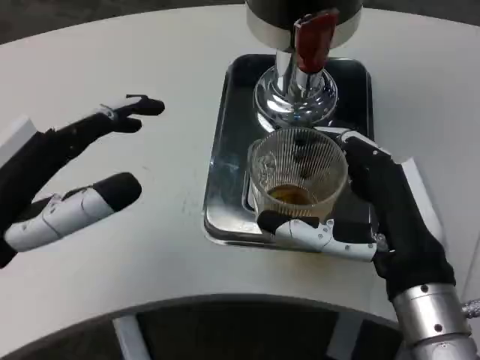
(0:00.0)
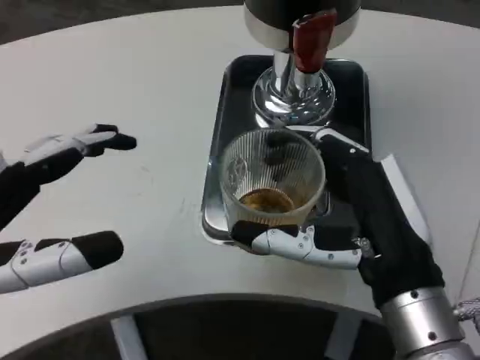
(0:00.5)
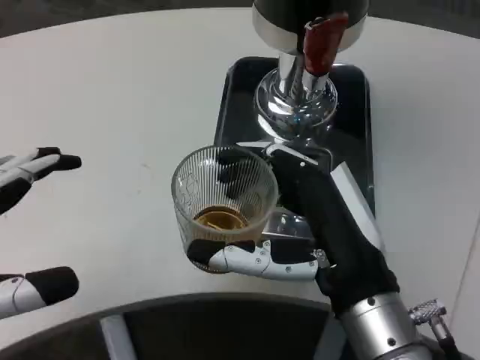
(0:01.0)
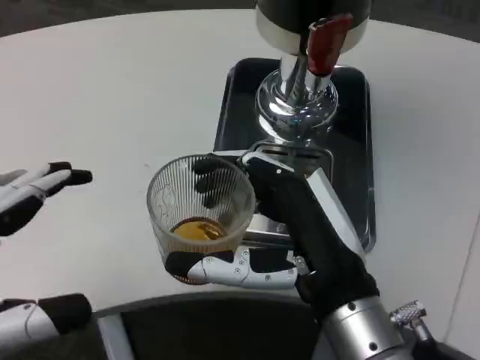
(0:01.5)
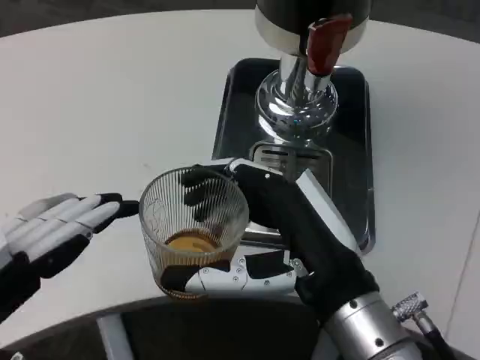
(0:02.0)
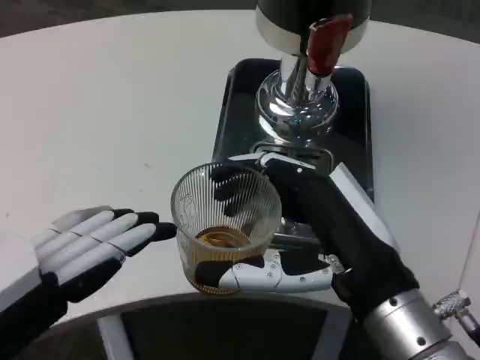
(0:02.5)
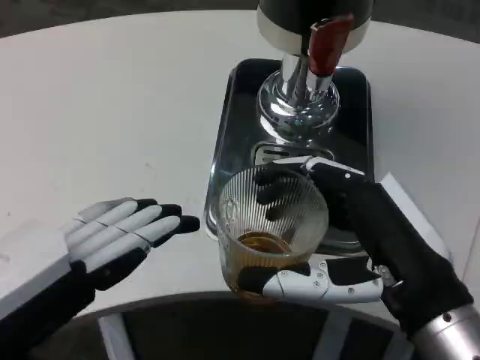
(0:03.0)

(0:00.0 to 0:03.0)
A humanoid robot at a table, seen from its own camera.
Task of the whole recording: Grasp the cup under the faucet to collect the drink, then remove the cup.
0:00.0 - 0:01.5: The left hand travels backward by about 10 cm.
0:01.5 - 0:03.0: The right hand heads to the right, covering roughly 5 cm.

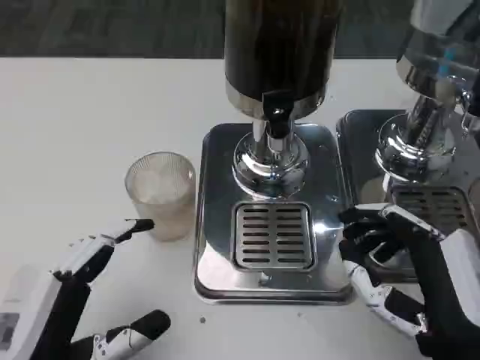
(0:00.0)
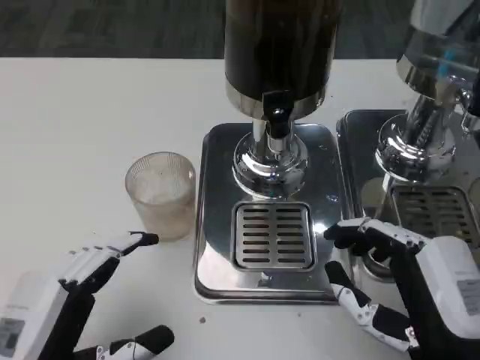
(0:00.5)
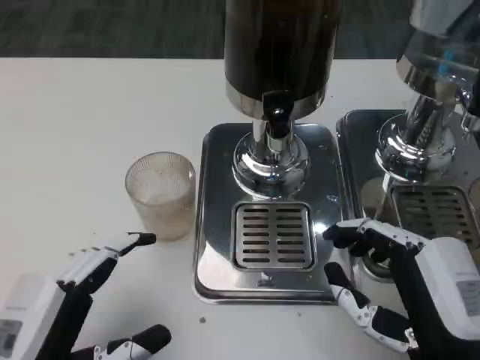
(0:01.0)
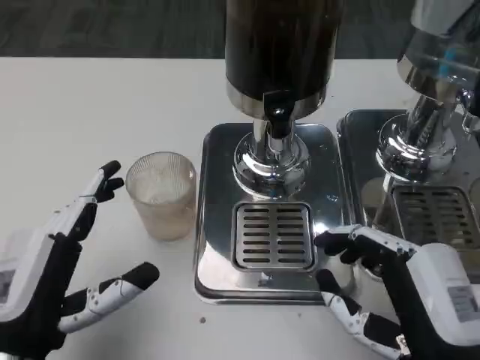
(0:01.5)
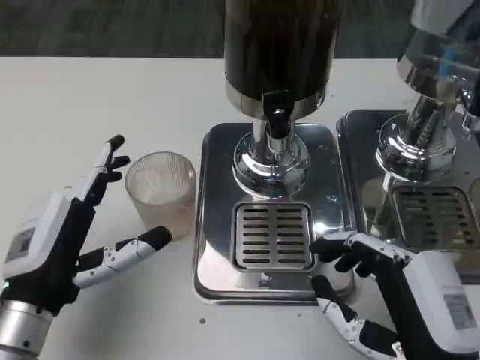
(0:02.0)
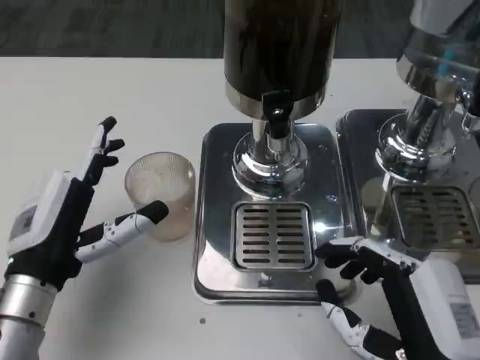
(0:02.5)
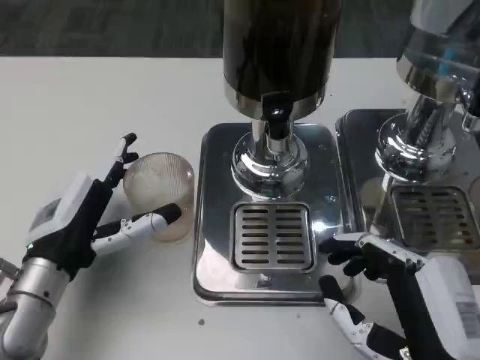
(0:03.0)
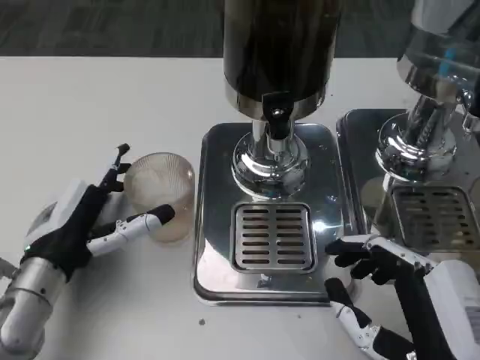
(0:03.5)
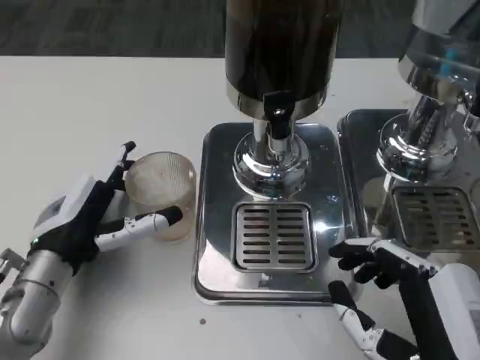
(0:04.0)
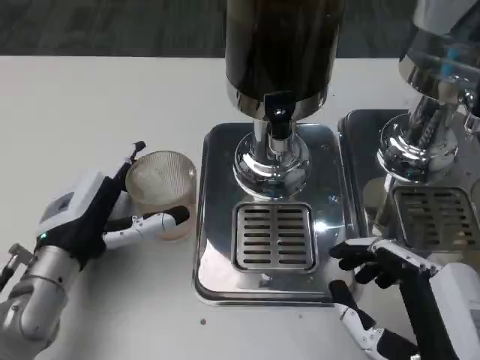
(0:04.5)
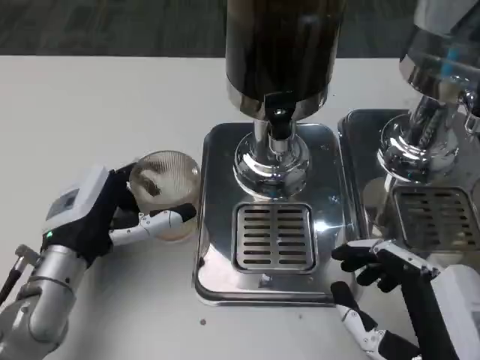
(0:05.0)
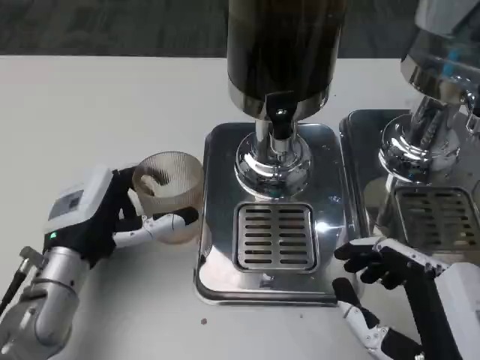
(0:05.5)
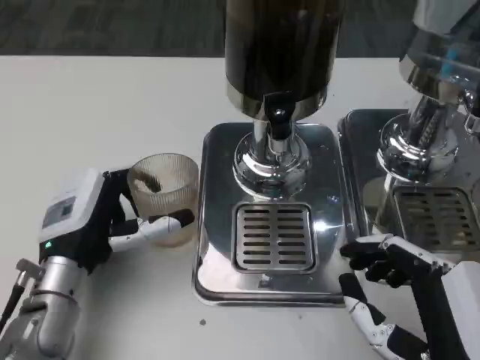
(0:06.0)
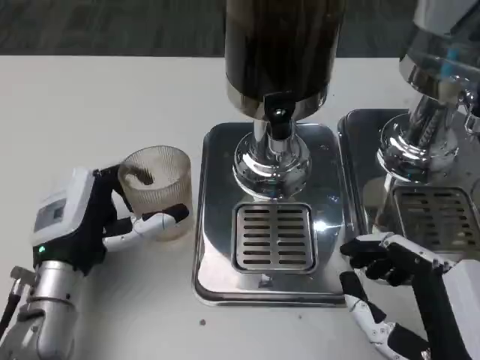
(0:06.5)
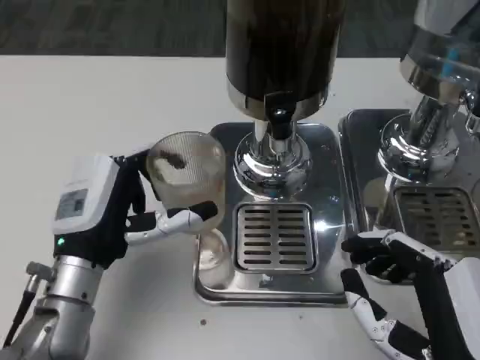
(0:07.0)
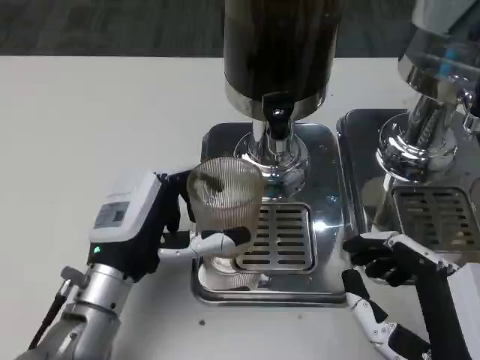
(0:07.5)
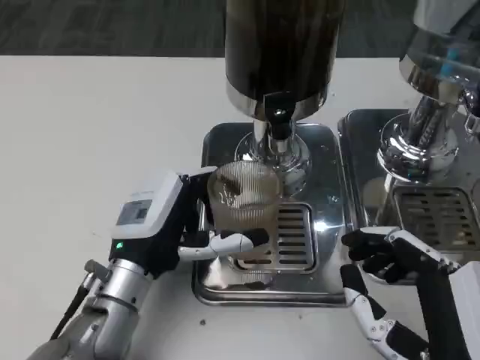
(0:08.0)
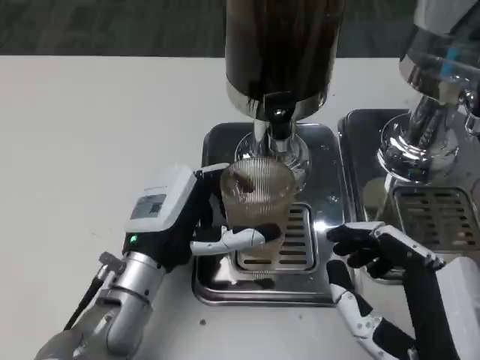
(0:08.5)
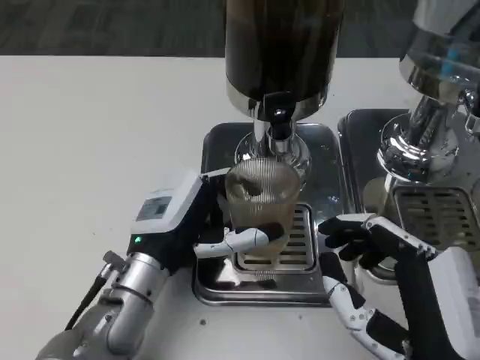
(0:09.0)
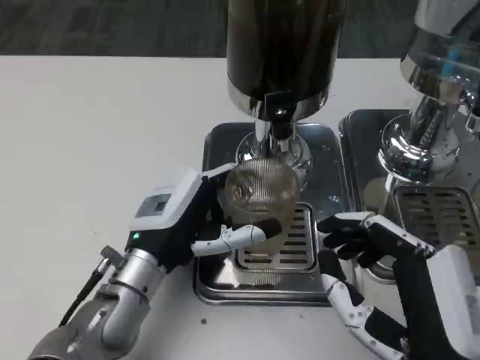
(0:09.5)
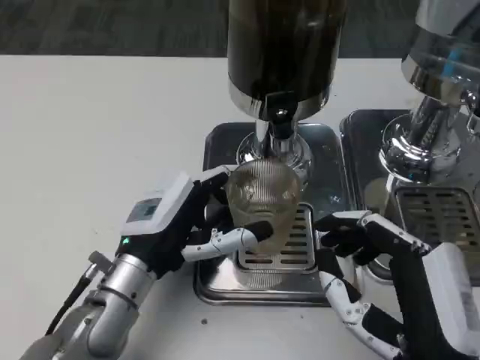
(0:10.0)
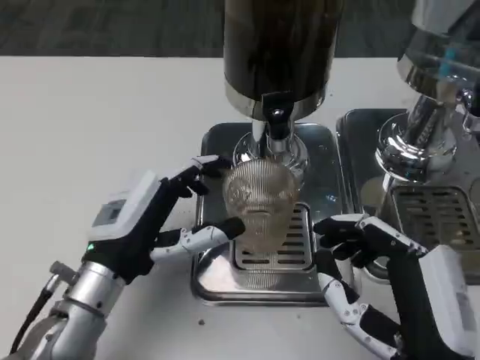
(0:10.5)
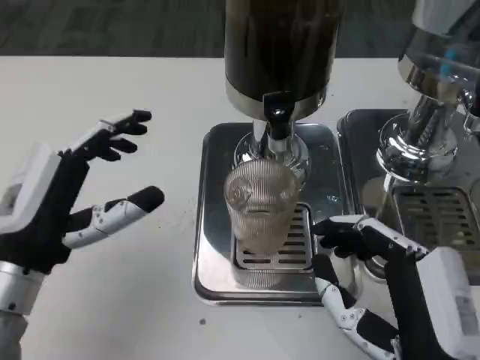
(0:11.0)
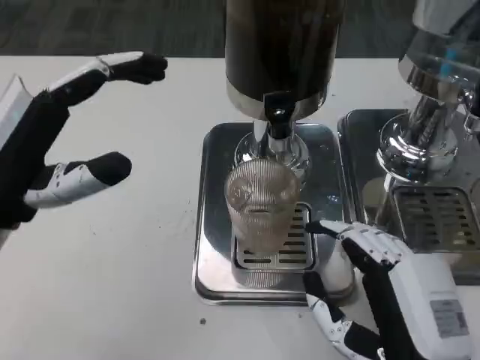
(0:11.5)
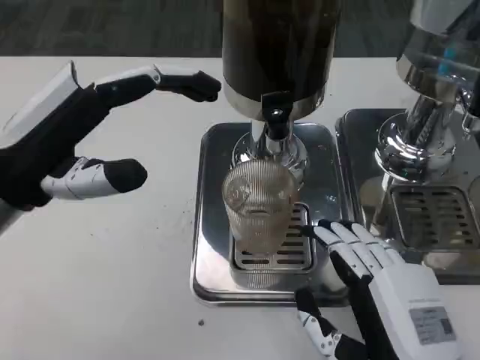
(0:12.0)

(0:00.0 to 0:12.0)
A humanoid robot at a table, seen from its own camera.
Task of the whole recording: Grasp the cup under the faucet to collect the drink, then remove the cup.
0:00.0 - 0:02.0: The left hand goes approximately 10 cm forward.
0:02.0 - 0:04.0: The left hand is displaced forward by some 5 cm.
0:04.0 - 0:06.0: The hands make only small movements.
0:06.0 - 0:08.0: The left hand heads to the right, covering some 5 cm.
0:08.0 - 0:10.0: The hands stay close to where they were, moving slightly.
0:10.0 - 0:12.0: The left hand moves upward and to the left, roughly 15 cm.

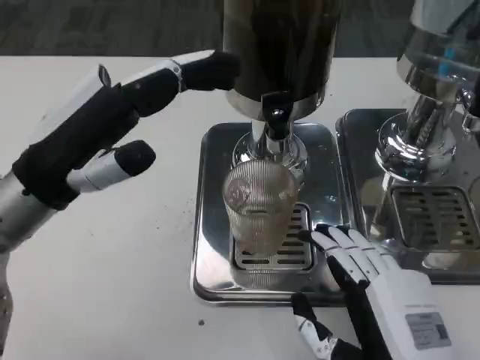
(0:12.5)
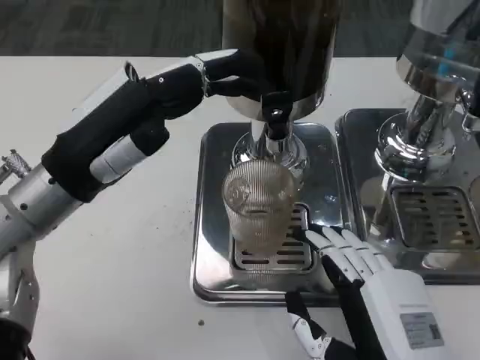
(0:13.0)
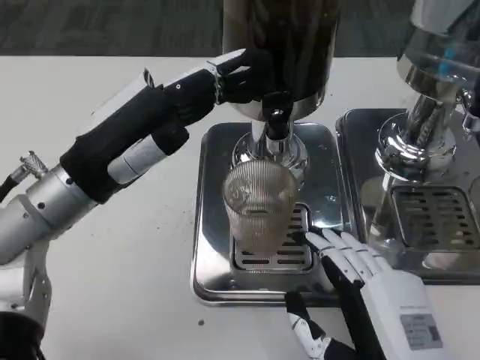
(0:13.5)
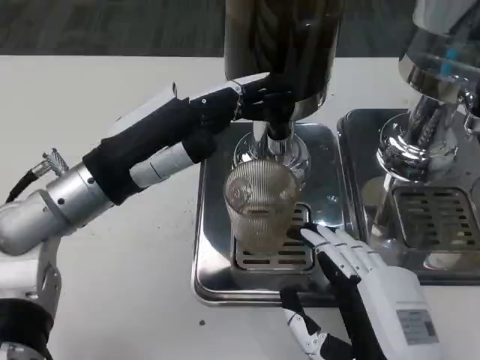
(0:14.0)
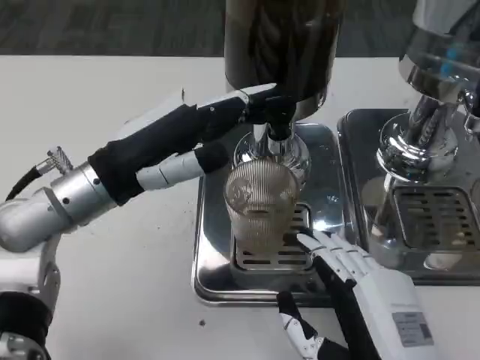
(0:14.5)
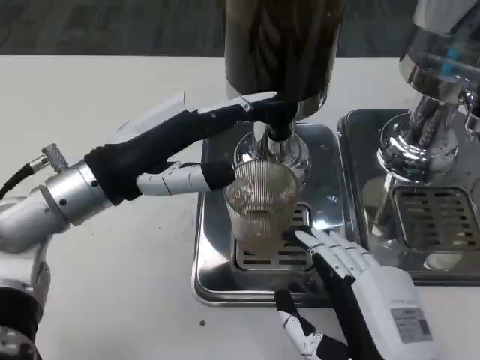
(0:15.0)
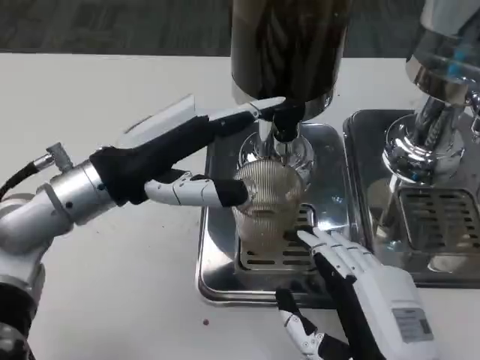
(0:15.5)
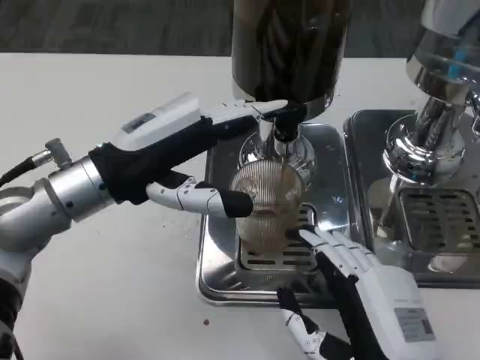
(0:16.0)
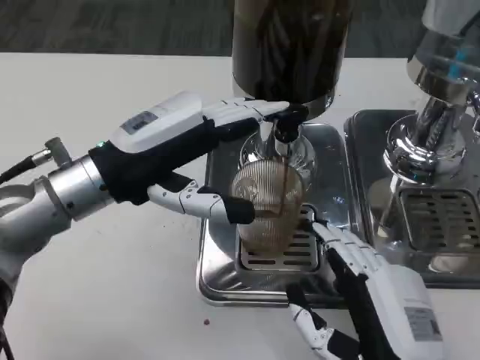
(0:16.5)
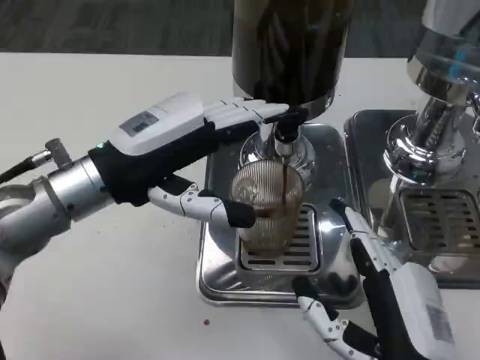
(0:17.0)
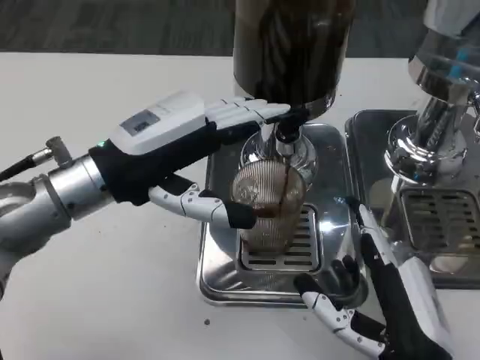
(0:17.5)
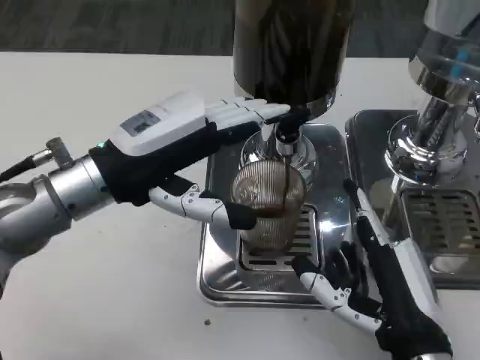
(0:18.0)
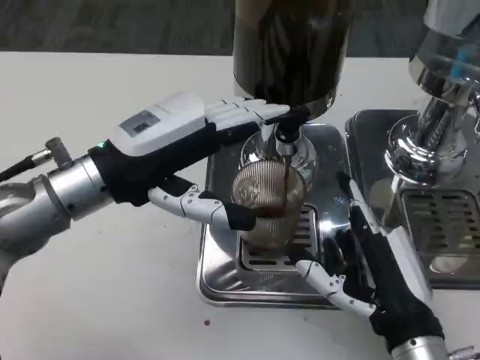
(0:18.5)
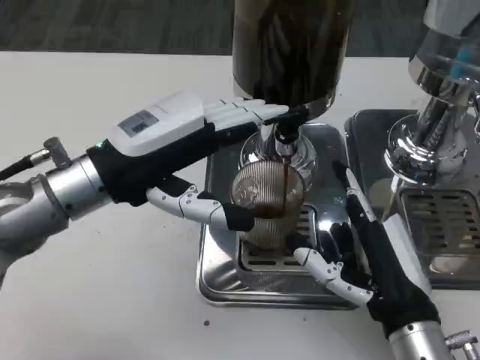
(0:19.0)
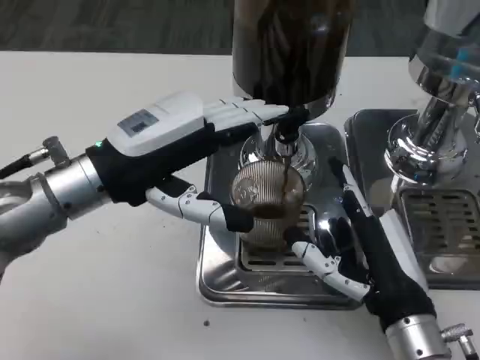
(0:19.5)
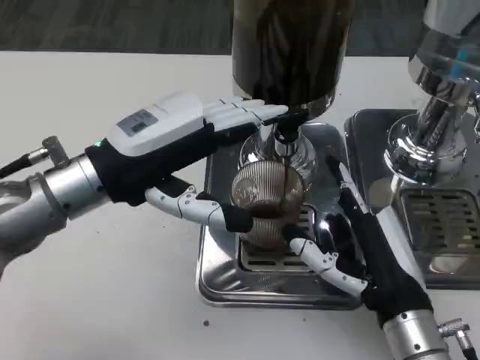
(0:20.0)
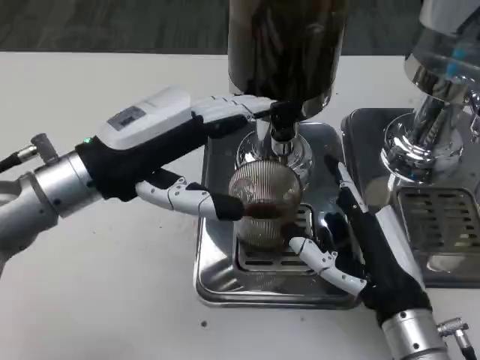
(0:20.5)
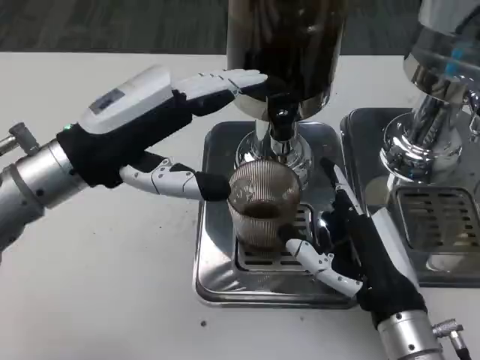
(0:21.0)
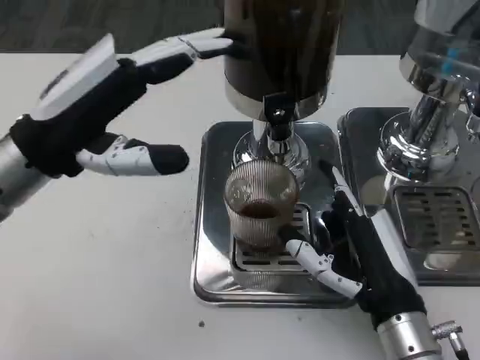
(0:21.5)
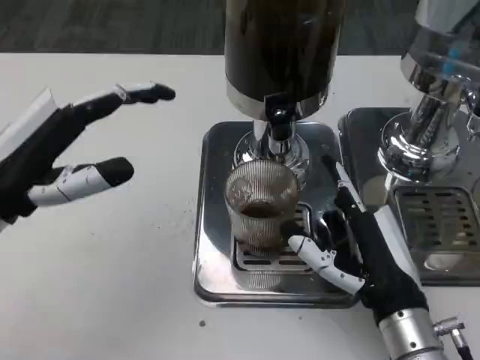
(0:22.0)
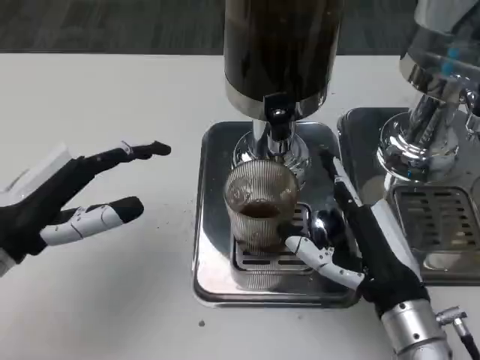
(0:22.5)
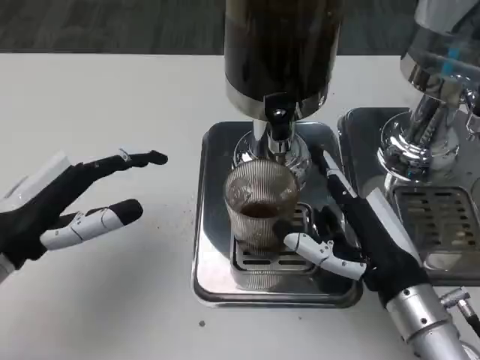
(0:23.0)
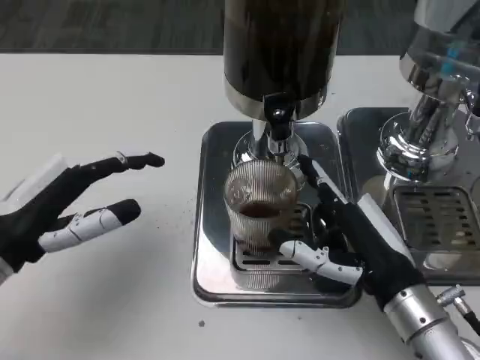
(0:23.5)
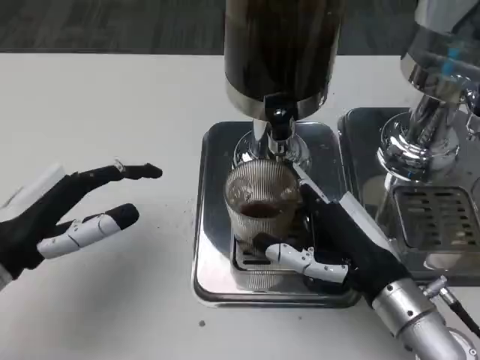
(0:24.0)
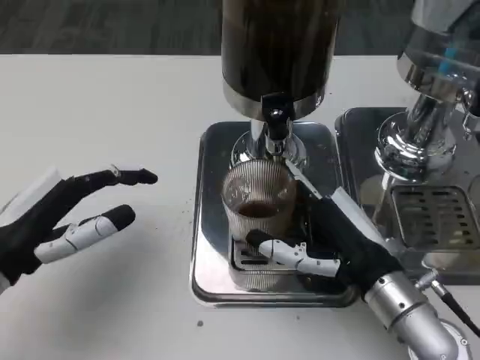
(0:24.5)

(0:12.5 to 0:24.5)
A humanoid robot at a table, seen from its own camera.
Task of the whole recording: Grasp the cup under the faucet to collect the drink, then remove the cup.
0:16.5 - 0:18.5: The right hand goes some 5 cm forward.
0:20.5 - 0:22.5: The left hand shifts some 10 cm to the left, backward and downward.
